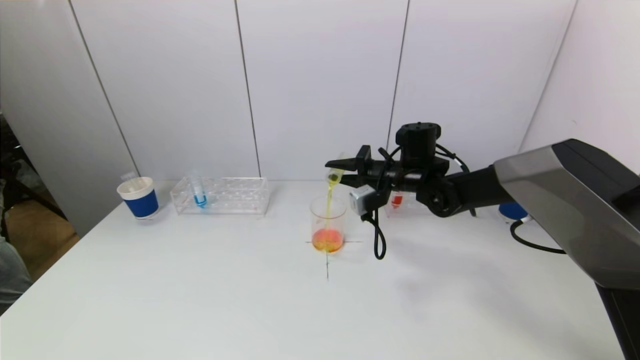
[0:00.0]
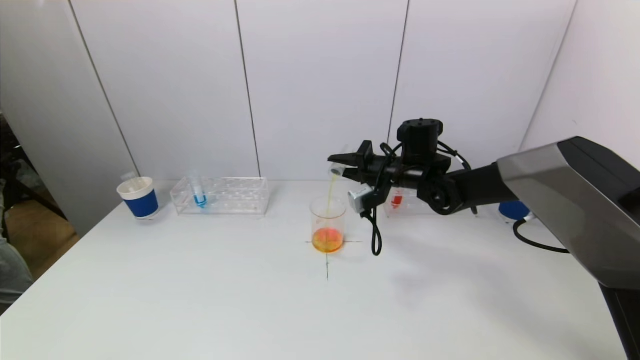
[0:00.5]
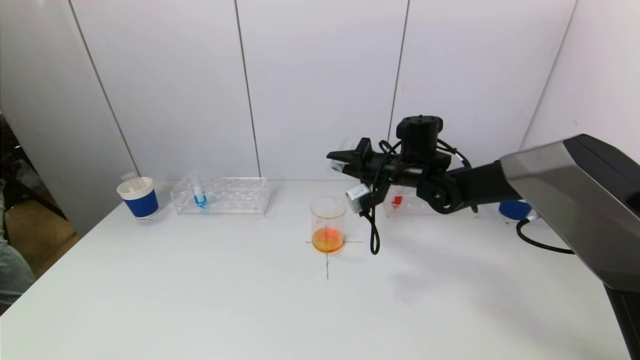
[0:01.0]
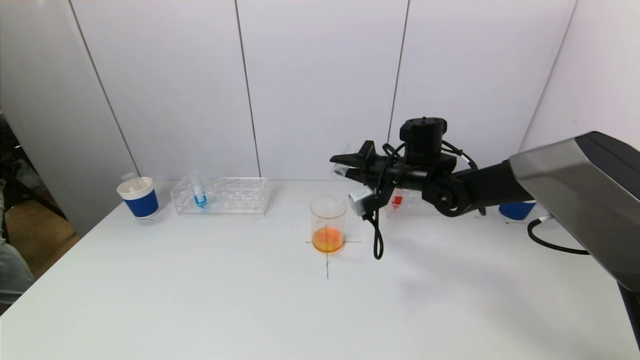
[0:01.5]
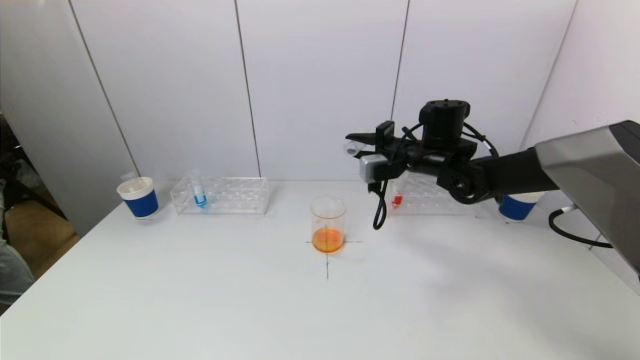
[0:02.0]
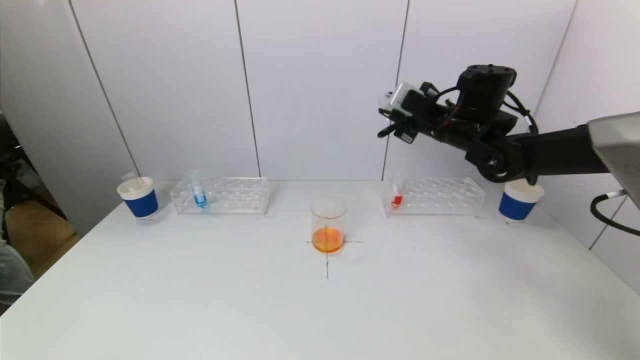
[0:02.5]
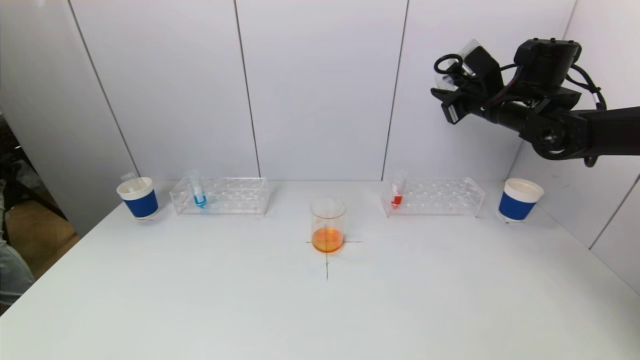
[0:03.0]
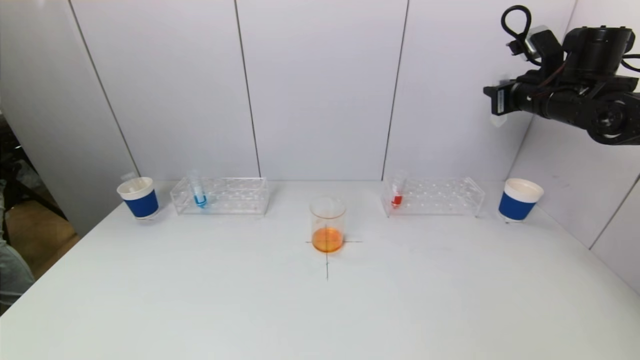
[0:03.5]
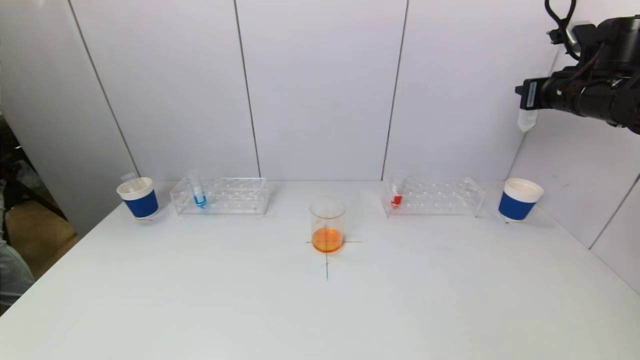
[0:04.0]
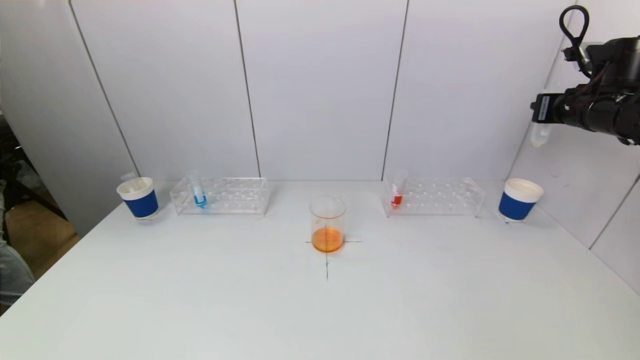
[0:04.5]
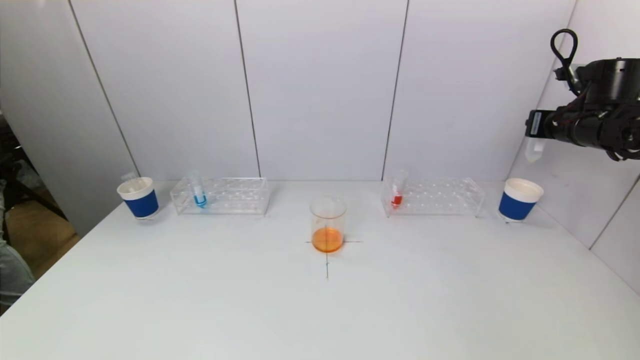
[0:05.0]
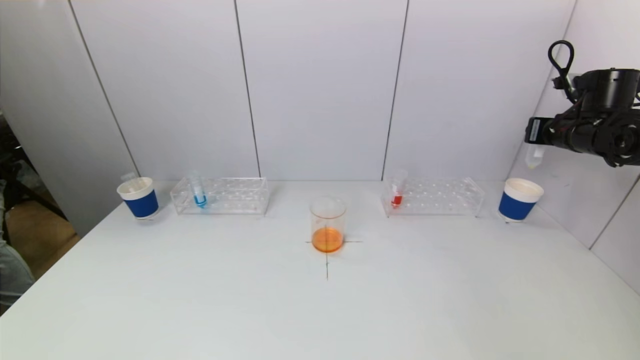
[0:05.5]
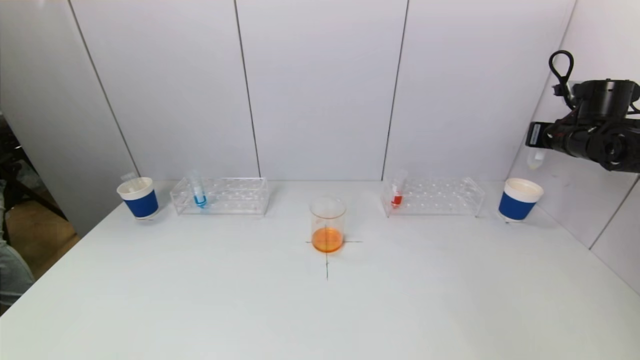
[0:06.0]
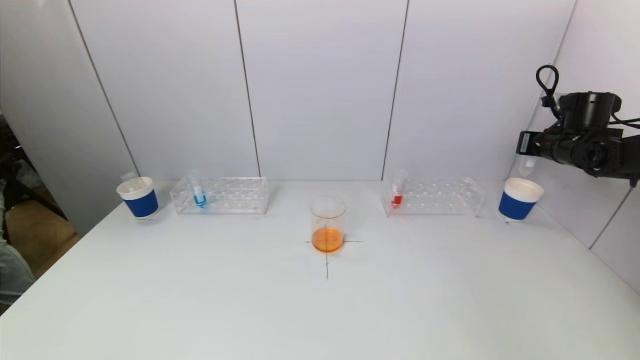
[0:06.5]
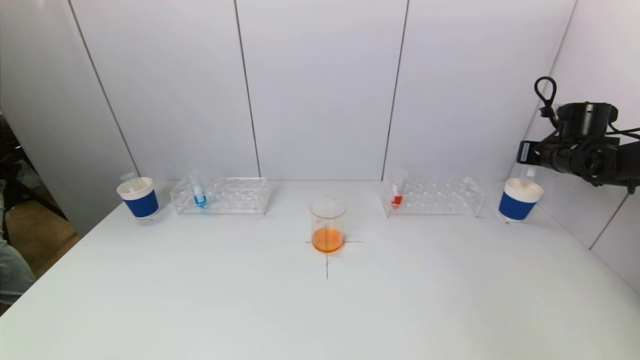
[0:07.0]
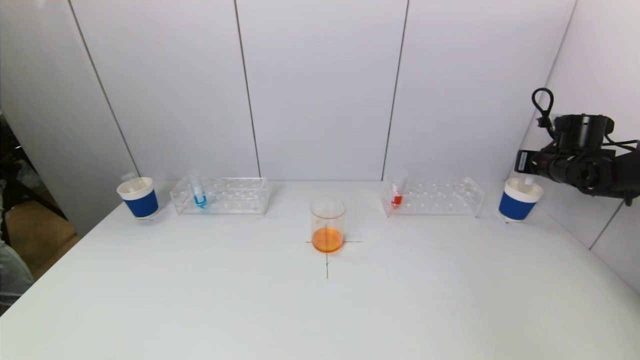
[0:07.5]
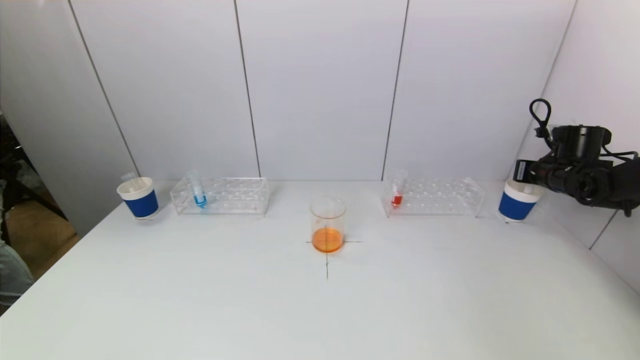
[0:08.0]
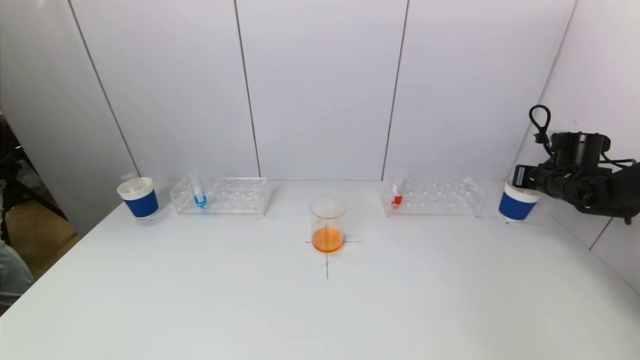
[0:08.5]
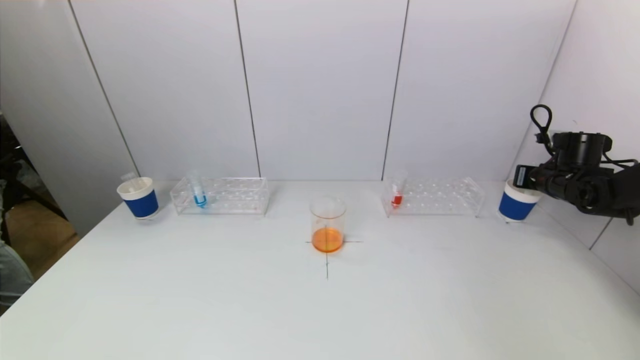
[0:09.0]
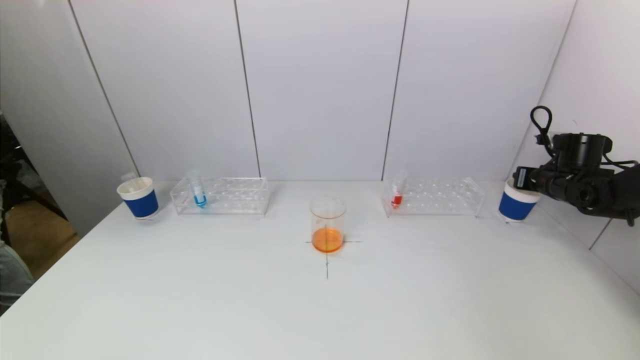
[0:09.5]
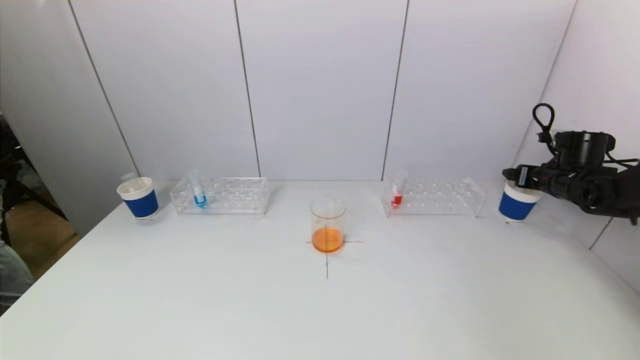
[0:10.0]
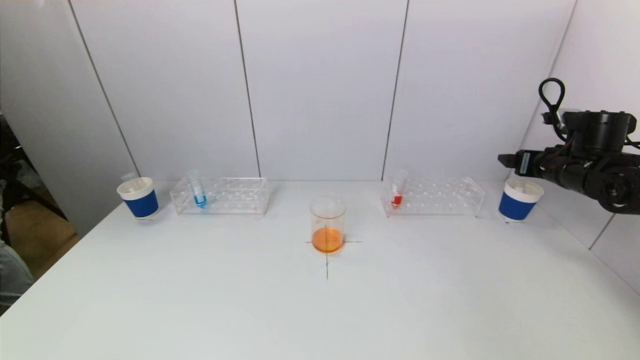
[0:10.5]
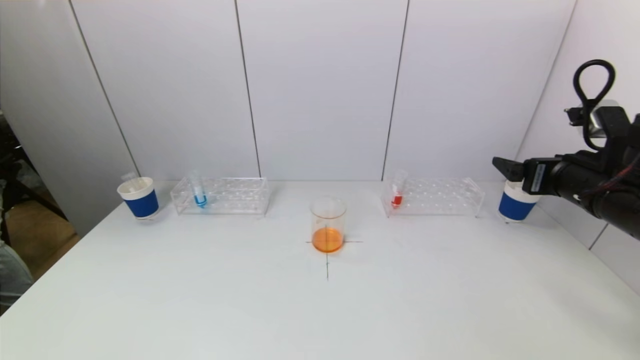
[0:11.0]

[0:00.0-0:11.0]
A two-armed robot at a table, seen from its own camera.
Task of the whole recording: pick up a test tube with pigment on left test tube rack and a test tube with pigment on right test tube rack by grippers and pour them into the beaker.
Step, 0:01.5 to 0:10.0: Place the test tube into the paper cup with the right gripper.
0:00.0 to 0:02.0: The right gripper moves some 5 cm.
0:02.0 to 0:03.5: The right gripper moves to the right and upward, some 20 cm.
0:03.5 to 0:05.5: The right gripper heads to the right and downward, covering about 10 cm.
0:05.5 to 0:07.5: The right gripper travels downward by roughly 10 cm.
0:07.5 to 0:09.0: The grippers stay close to where they were, moving slightly.
0:09.0 to 0:11.0: The right gripper shifts roughly 25 cm backward, to the left and upward, and opens up.

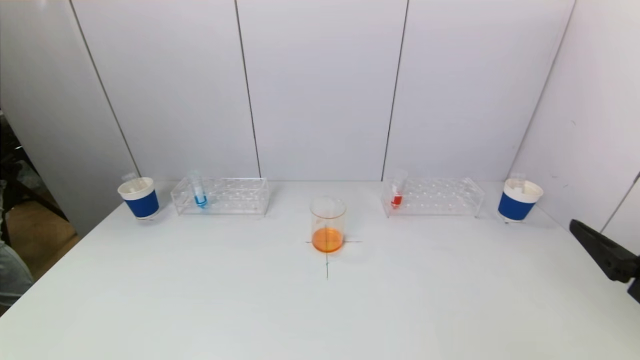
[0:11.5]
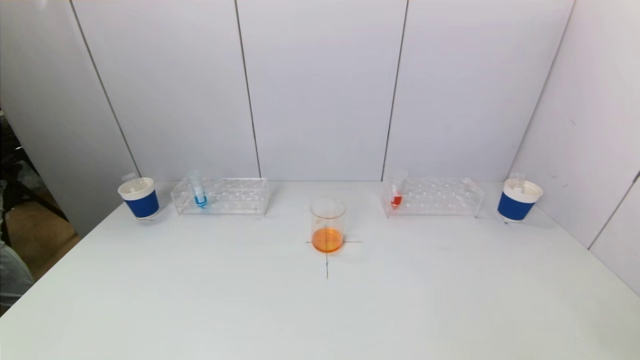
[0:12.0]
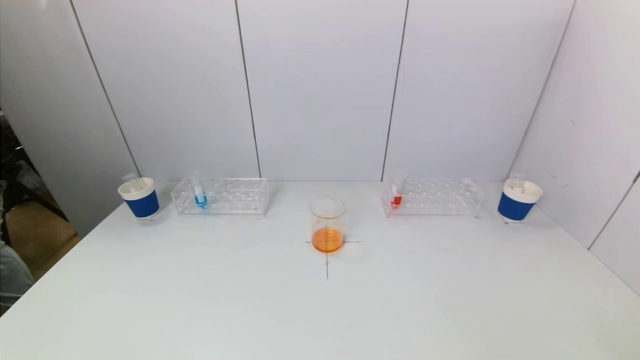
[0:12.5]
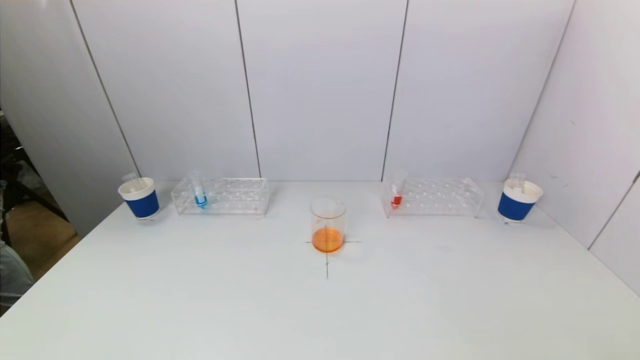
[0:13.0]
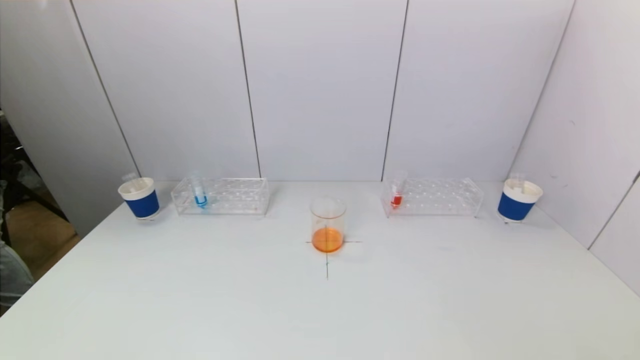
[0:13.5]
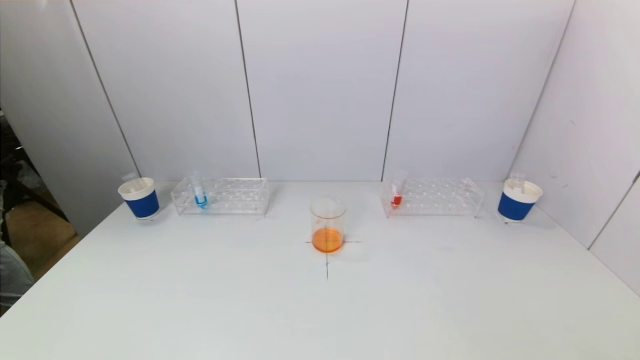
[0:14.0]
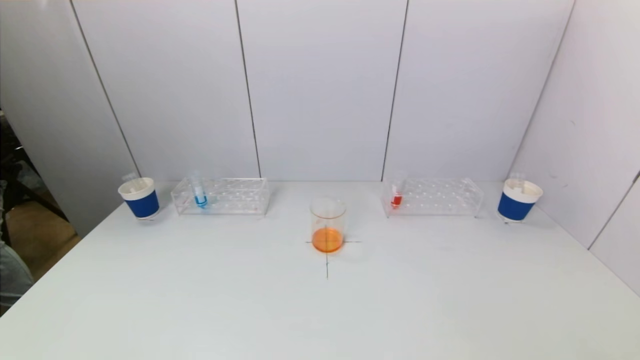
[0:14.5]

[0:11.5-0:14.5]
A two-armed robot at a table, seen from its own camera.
Task of the whole recording: pick up a test tube with pigment on left test tube rack and a test tube with pigment on right test tube rack by grippers and pour them into the beaker.
0:11.5 to 0:13.0: The right gripper is displaced backward and downward by approximately 15 cm.
